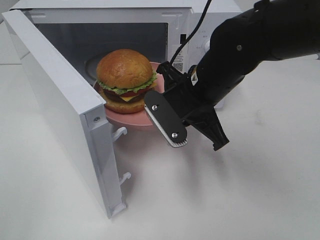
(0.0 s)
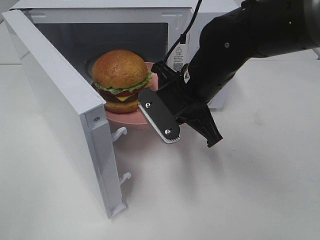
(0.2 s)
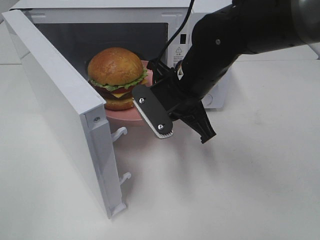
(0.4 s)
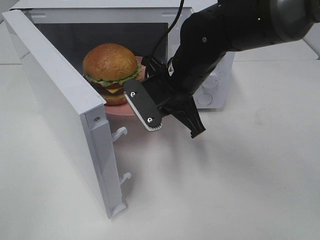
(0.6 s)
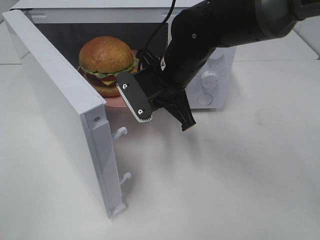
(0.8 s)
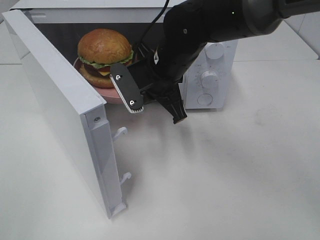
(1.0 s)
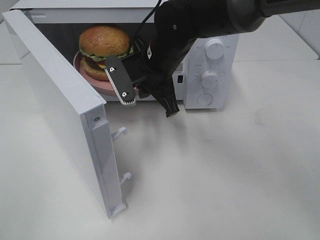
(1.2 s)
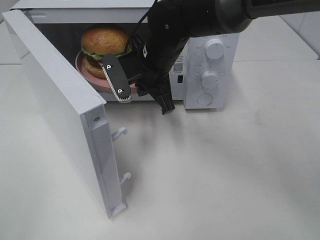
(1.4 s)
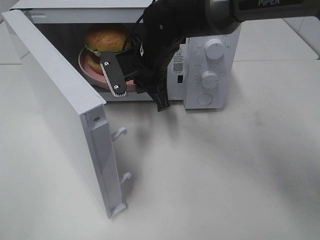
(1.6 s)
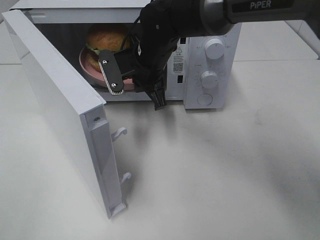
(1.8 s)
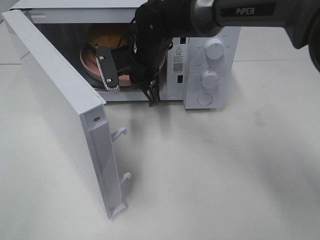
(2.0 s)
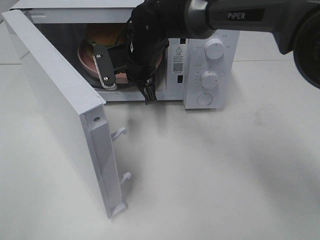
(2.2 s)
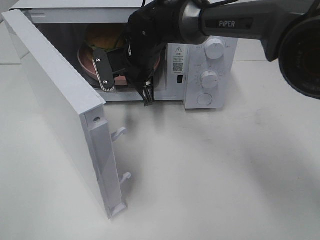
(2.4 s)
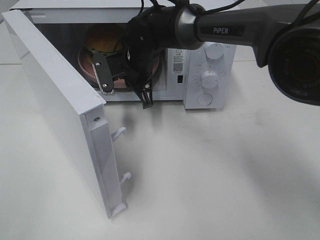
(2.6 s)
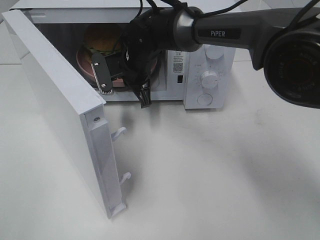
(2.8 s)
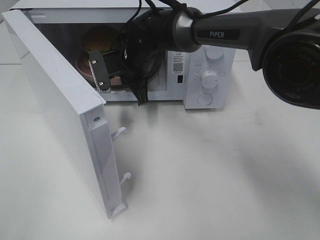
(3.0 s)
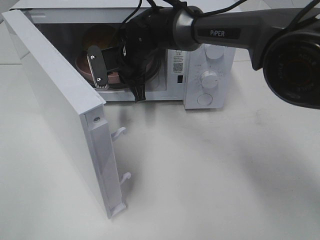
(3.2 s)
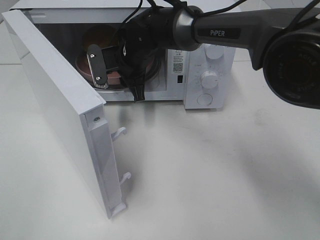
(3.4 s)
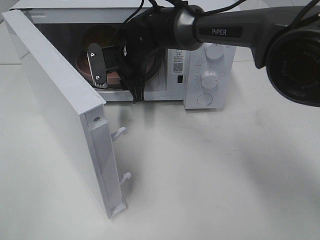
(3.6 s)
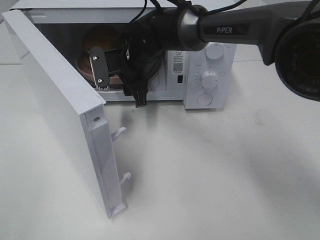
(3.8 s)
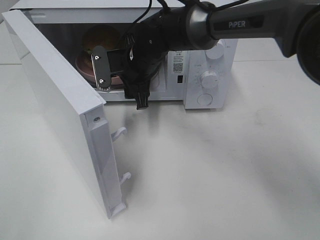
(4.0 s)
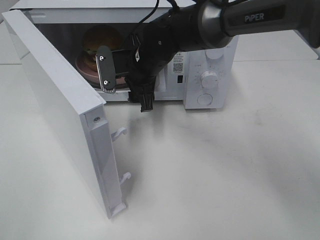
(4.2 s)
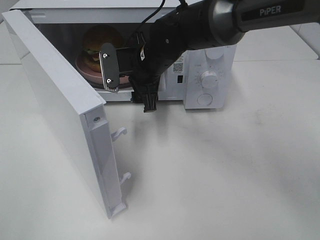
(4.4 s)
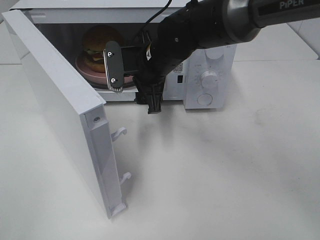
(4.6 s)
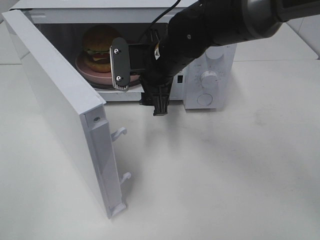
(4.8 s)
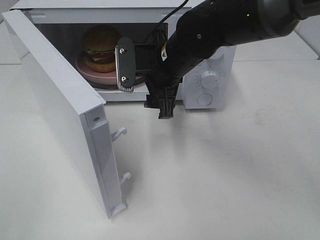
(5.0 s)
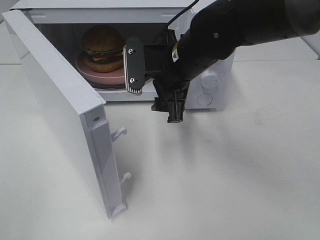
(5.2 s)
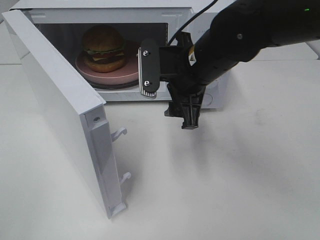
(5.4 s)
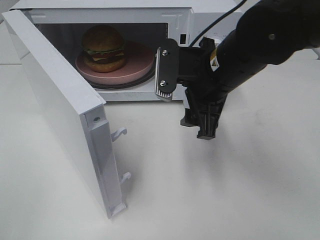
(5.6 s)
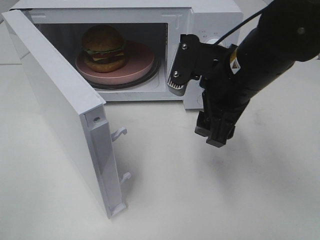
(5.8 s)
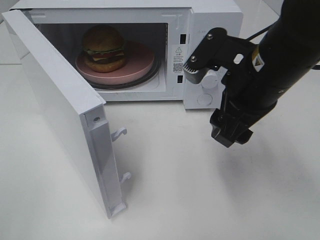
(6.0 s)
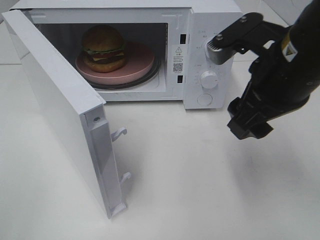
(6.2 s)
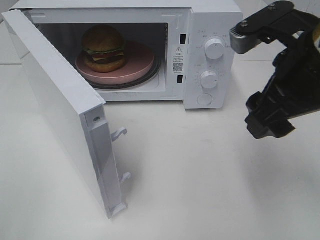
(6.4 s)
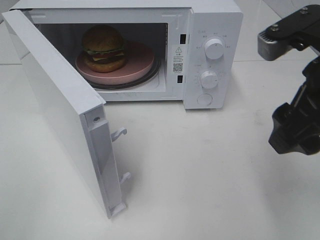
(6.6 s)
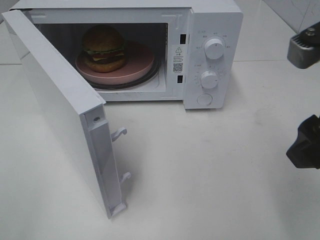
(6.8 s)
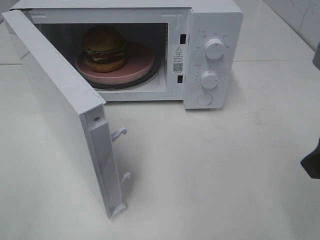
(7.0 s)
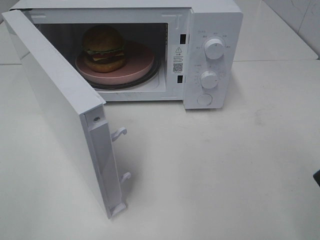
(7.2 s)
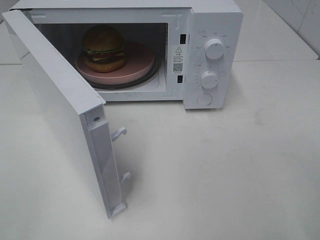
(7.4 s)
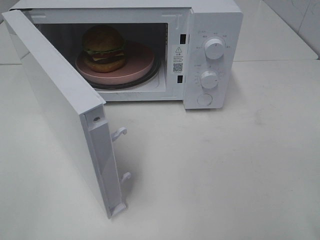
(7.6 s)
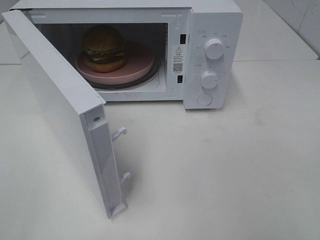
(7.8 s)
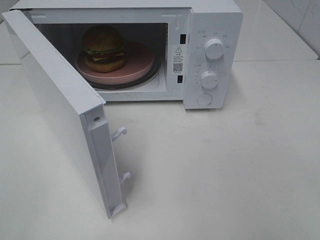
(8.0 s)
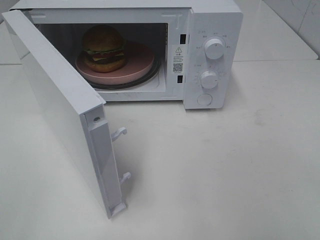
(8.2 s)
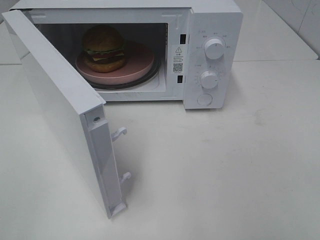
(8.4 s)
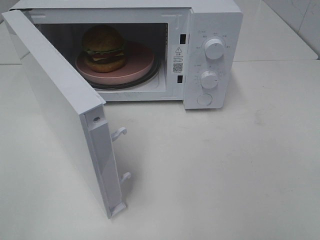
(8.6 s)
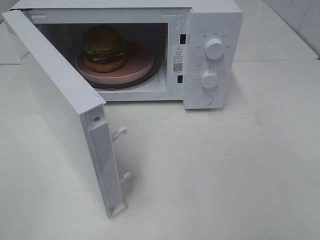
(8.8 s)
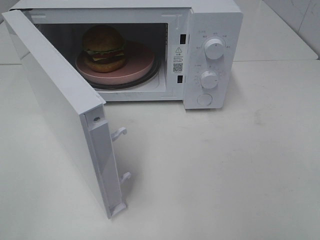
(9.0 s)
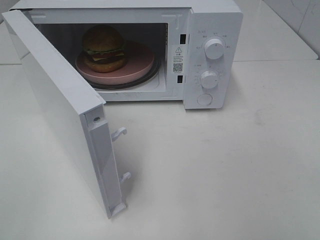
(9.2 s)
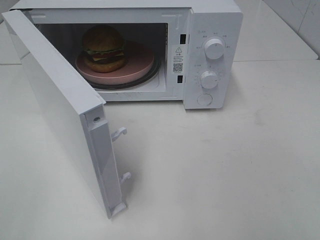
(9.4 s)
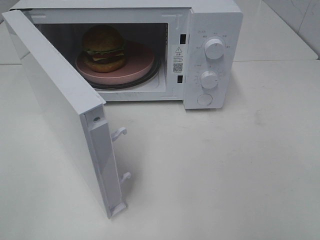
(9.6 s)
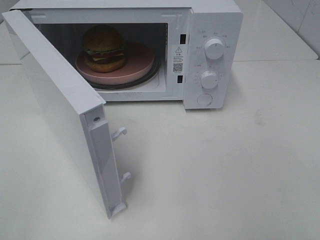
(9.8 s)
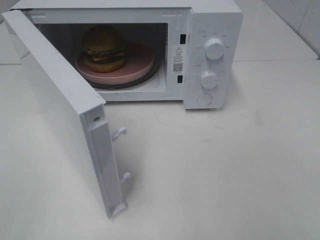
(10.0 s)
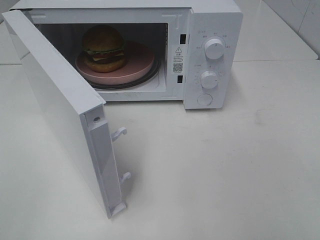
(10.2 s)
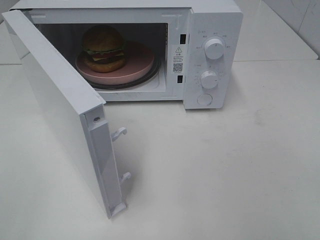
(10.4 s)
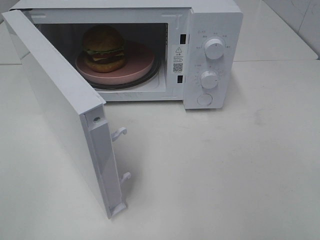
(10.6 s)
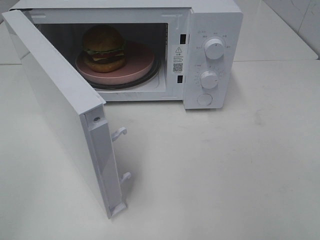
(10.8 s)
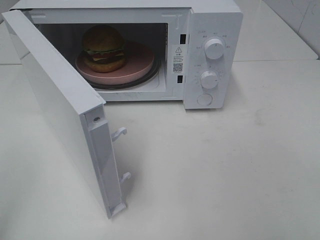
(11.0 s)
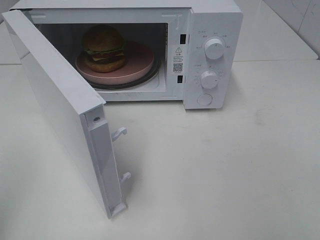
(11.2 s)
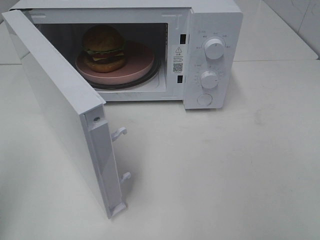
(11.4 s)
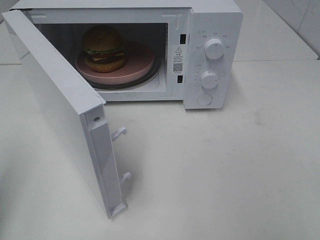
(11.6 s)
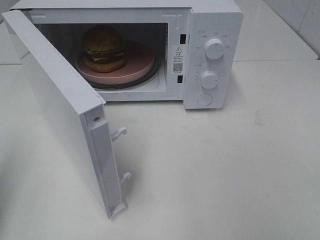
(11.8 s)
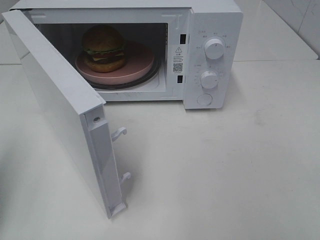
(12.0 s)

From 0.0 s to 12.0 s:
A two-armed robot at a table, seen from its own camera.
Task of the whole recording: Heat the burger.
Step, from 0.0 s to 3.8 s: Right hand: place the plate in the microwave.
From 0.0 s to 1.6 s: The right gripper shifts roughly 10 cm forward and to the left.
From 1.6 s to 3.0 s: The right gripper changes place by about 5 cm.
From 3.0 s to 4.4 s: The right gripper shifts by some 5 cm, and opens up.
From 4.4 s to 6.0 s: The right gripper shifts approximately 20 cm backward, to the right and upward.
From 6.0 s to 7.6 s: The right gripper travels backward and to the right by approximately 20 cm.
From 9.0 s to 10.4 s: Both grippers stay put.
From 10.4 s to 12.0 s: The left gripper moves forward, roughly 15 cm, and closes.

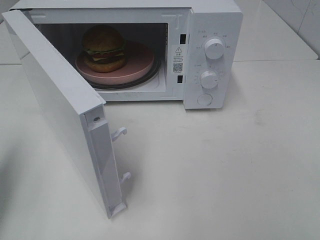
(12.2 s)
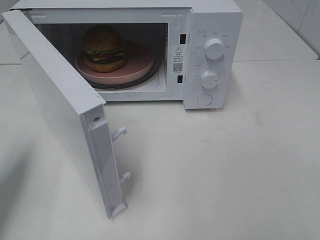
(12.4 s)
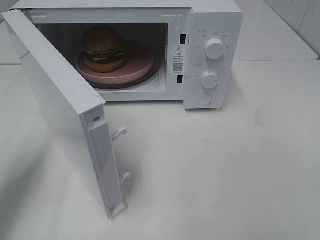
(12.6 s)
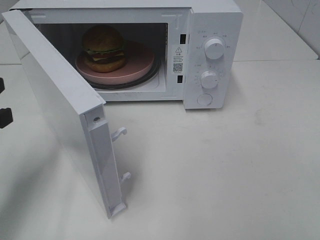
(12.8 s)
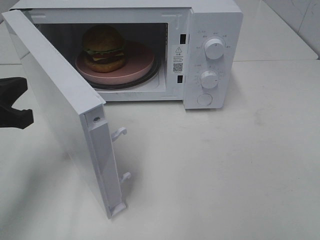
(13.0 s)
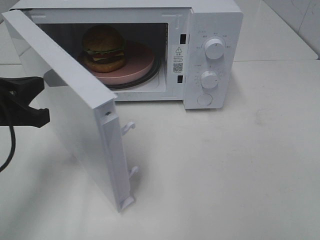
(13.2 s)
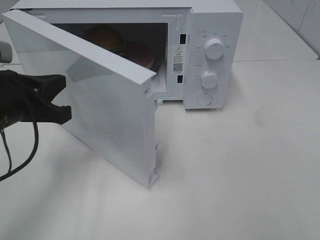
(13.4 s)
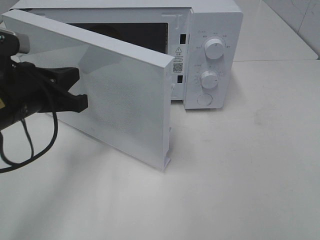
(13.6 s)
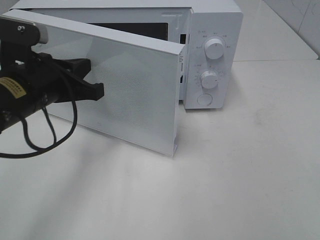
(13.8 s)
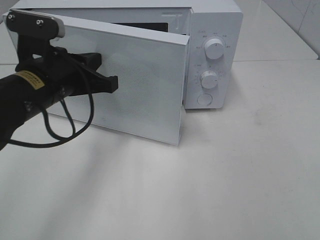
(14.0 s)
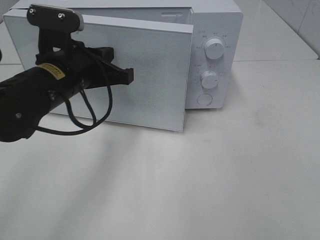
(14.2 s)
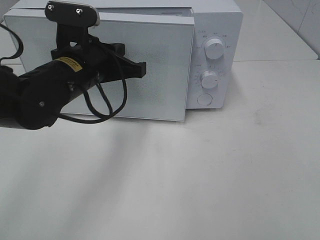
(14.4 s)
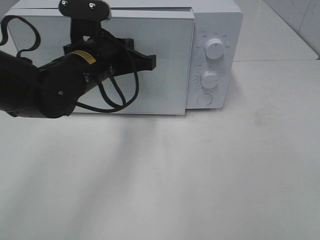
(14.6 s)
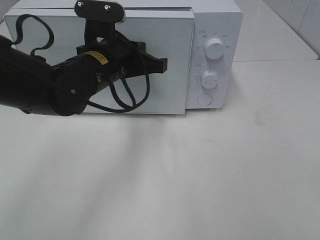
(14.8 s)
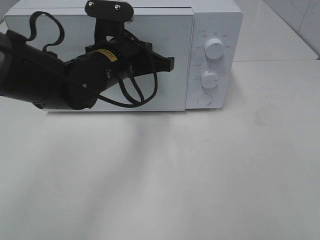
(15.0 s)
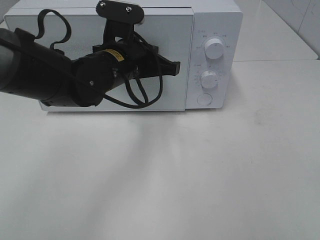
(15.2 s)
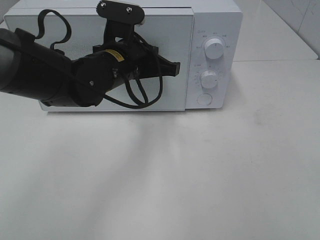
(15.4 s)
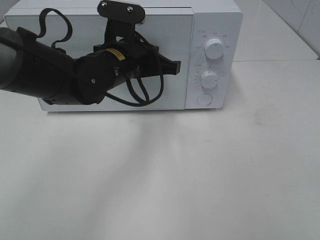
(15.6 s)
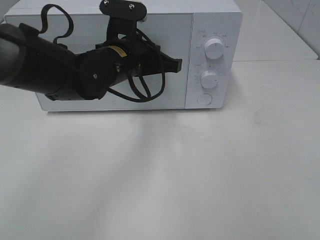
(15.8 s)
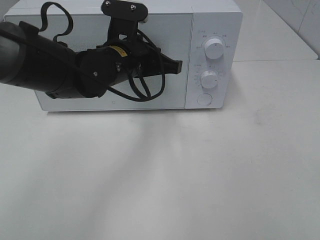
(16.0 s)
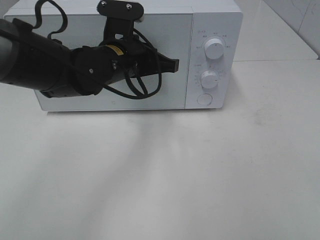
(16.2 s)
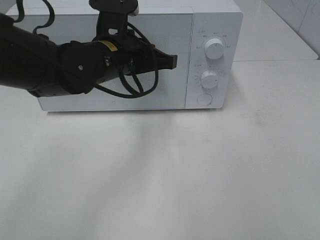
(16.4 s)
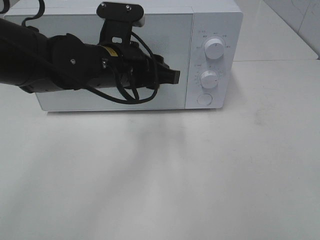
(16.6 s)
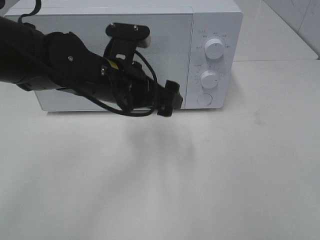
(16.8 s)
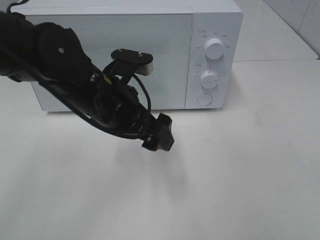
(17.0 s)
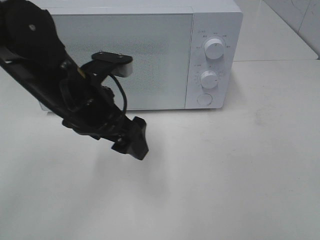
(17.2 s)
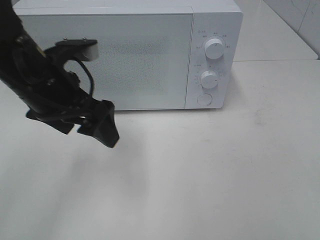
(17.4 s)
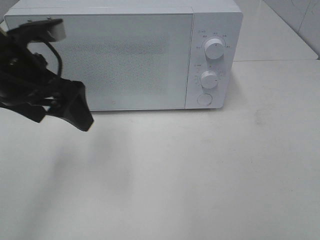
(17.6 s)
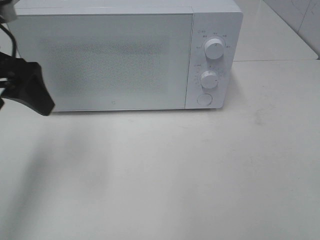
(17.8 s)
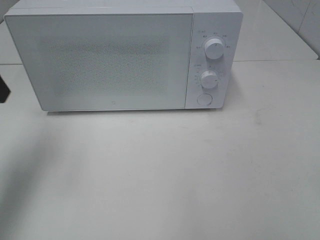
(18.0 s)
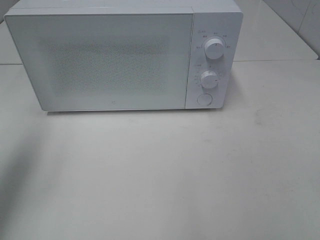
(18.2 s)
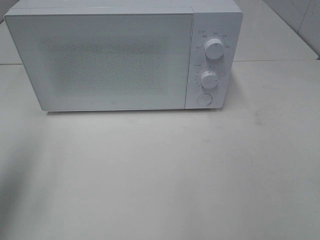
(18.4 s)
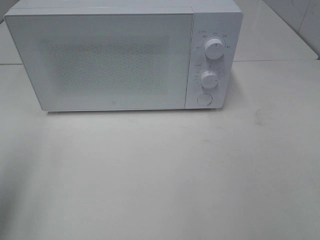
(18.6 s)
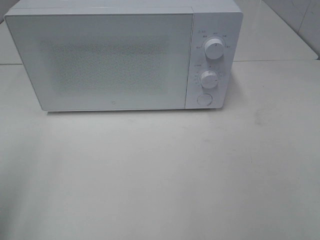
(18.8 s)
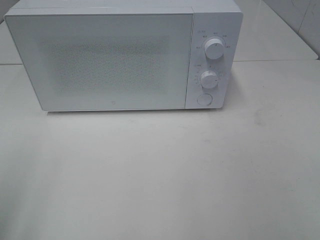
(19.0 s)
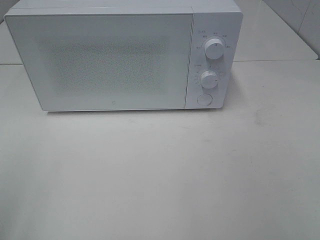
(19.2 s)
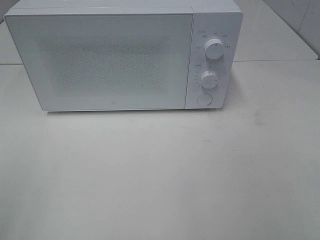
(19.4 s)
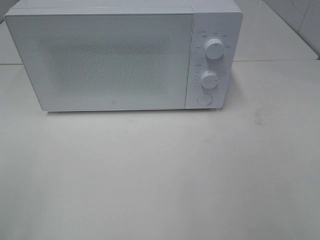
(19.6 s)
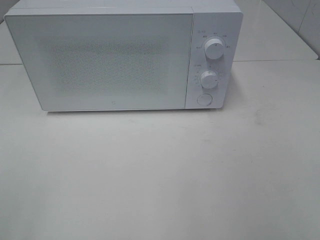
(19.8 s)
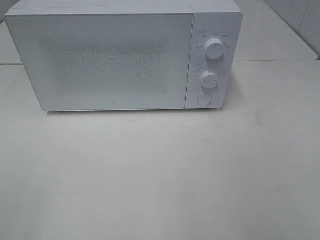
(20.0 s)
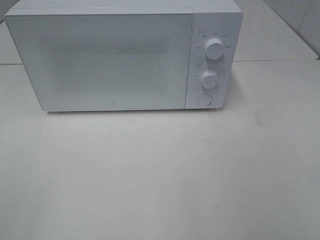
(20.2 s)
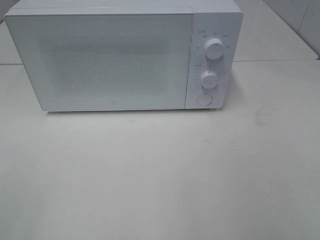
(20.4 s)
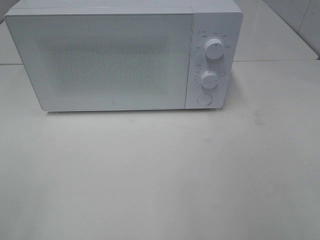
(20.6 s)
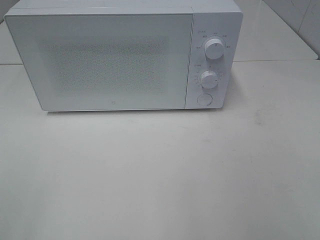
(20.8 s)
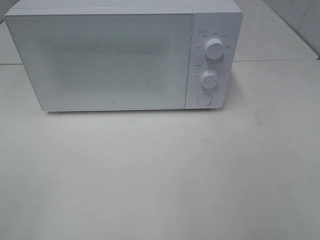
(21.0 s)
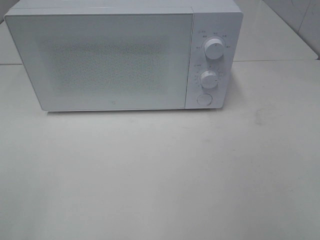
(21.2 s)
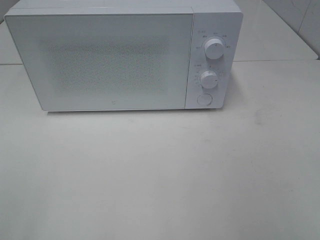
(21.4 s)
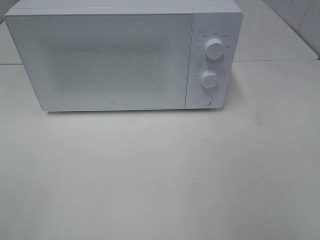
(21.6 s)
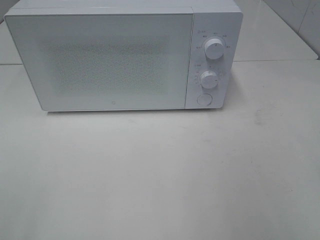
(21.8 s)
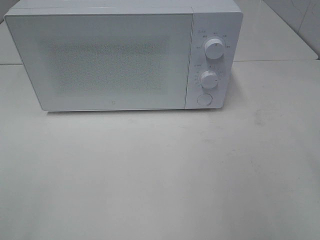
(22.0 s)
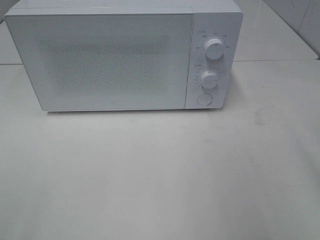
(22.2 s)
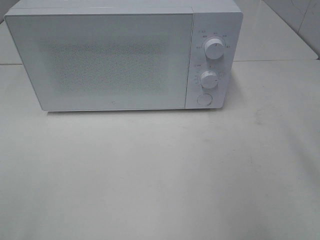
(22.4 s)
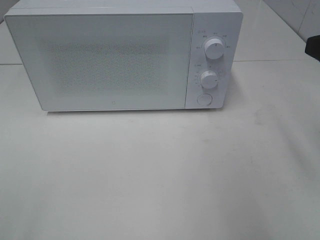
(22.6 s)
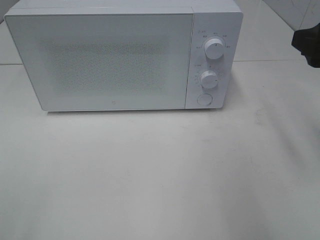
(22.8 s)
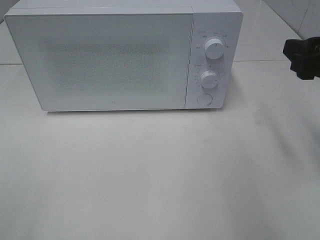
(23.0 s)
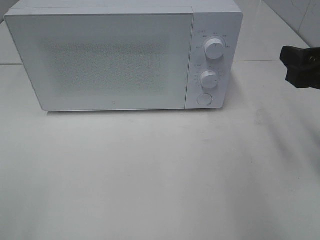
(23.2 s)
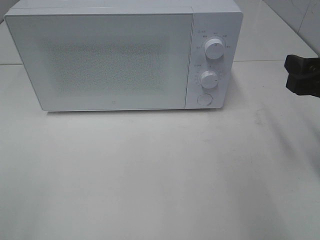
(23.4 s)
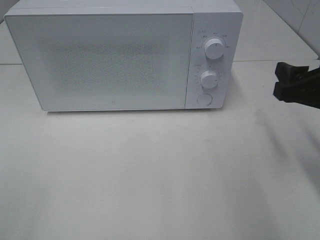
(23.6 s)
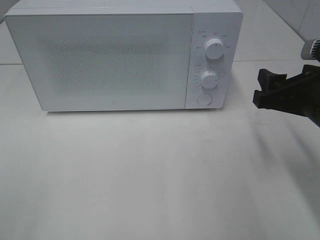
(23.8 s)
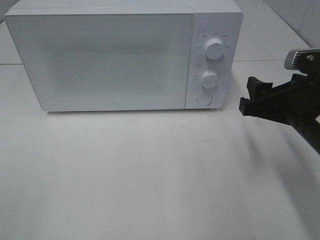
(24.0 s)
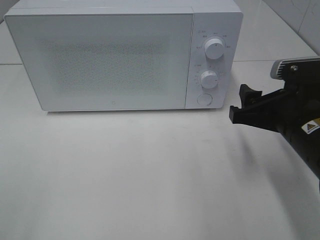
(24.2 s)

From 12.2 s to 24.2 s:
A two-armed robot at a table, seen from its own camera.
Task of the whole recording: Heat the burger.
Step, from 12.2 s to 16.6 s: Left hand: close the microwave door.
From 12.2 s to 13.8 s: The left gripper shifts roughly 20 cm to the right and forward.
From 13.8 s to 15.2 s: The left gripper moves to the right and forward, about 15 cm.
From 15.2 s to 16.6 s: The left gripper opens up.
From 16.6 s to 18.2 s: The left gripper heads to the left and upward, covering roughly 30 cm, and opens its fingers.
From 18.2 s to 19.8 s: The left gripper moves backward, some 20 cm.
From 19.8 s to 21.2 s: The two grippers keep their place.
From 22.6 s to 24.2 s: The right gripper moves downward and to the left, some 15 cm.
